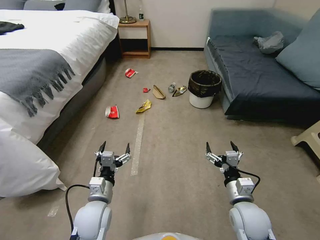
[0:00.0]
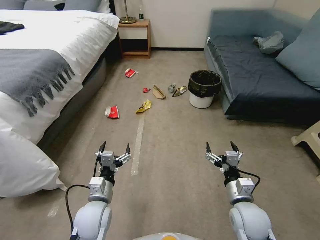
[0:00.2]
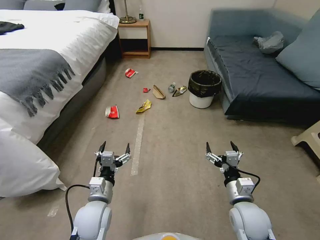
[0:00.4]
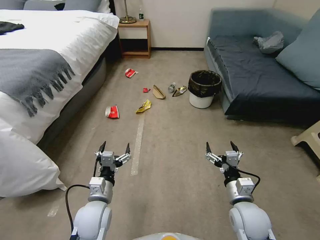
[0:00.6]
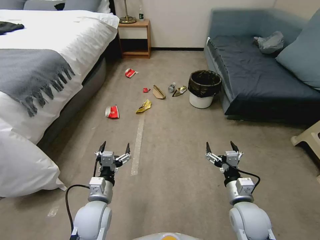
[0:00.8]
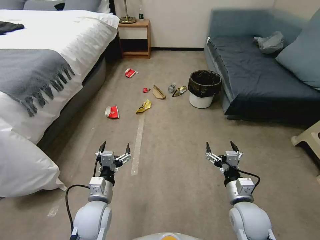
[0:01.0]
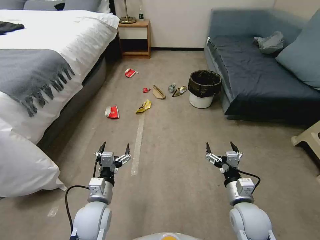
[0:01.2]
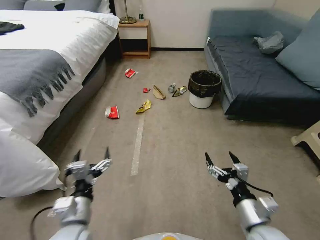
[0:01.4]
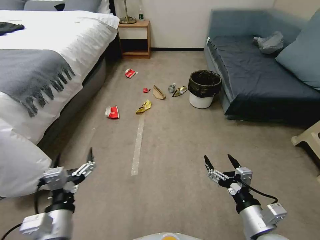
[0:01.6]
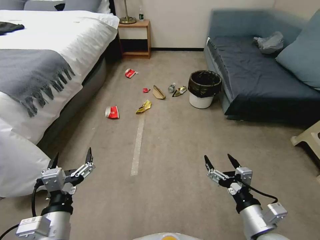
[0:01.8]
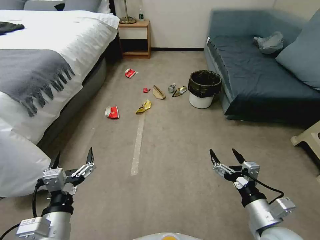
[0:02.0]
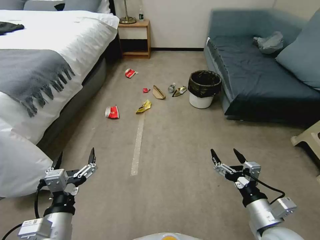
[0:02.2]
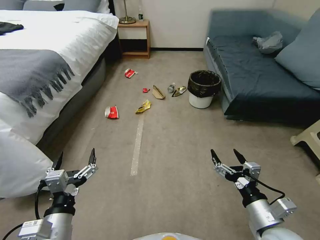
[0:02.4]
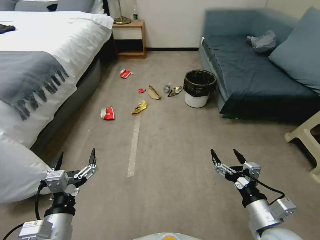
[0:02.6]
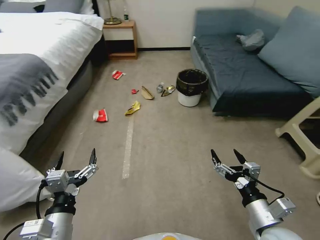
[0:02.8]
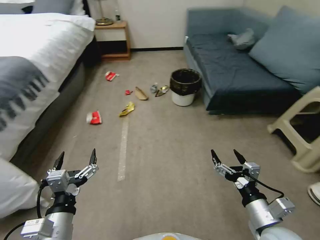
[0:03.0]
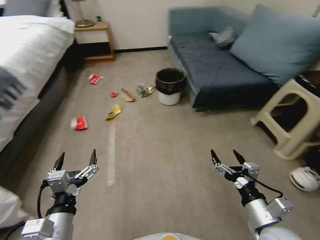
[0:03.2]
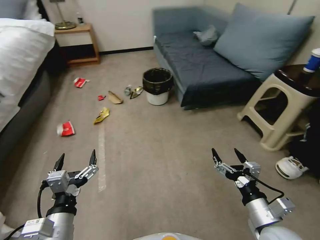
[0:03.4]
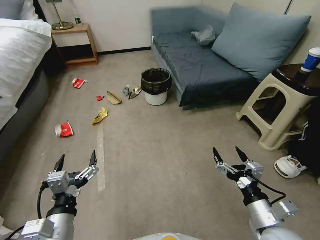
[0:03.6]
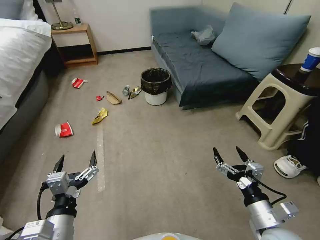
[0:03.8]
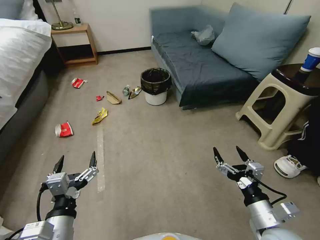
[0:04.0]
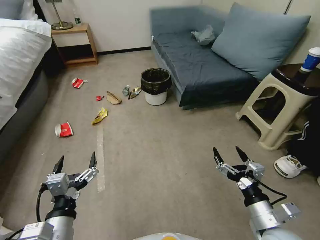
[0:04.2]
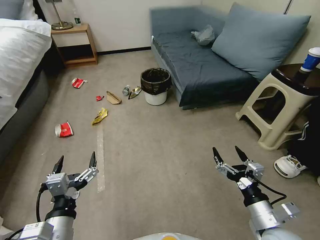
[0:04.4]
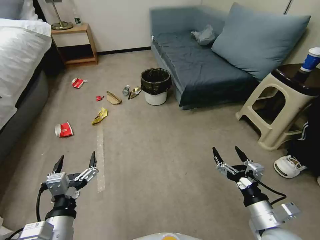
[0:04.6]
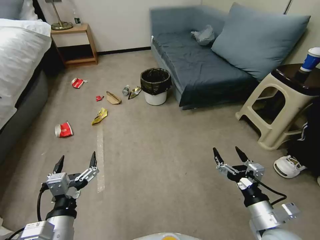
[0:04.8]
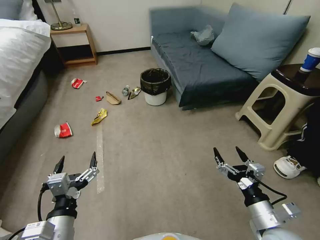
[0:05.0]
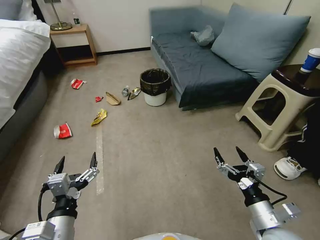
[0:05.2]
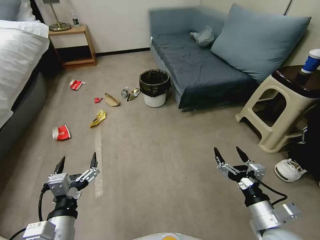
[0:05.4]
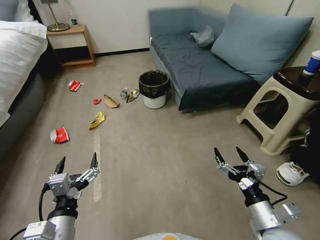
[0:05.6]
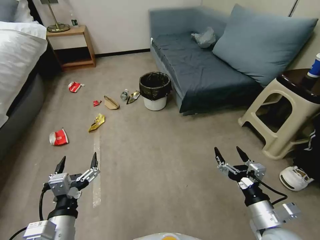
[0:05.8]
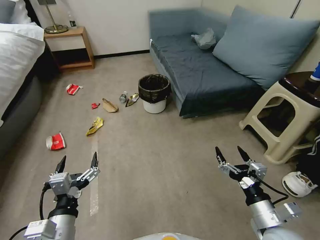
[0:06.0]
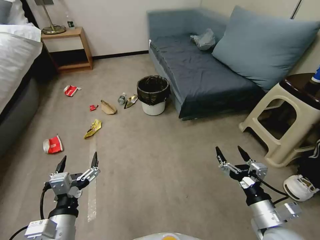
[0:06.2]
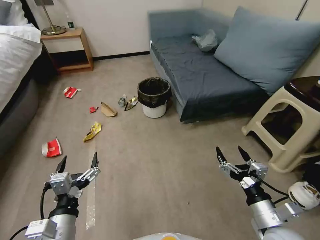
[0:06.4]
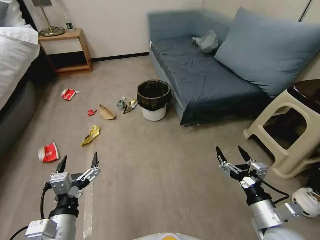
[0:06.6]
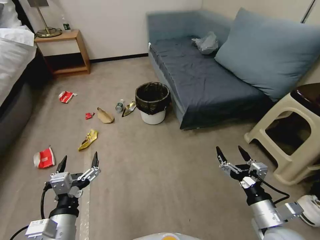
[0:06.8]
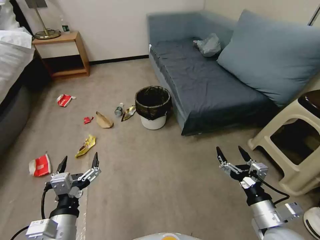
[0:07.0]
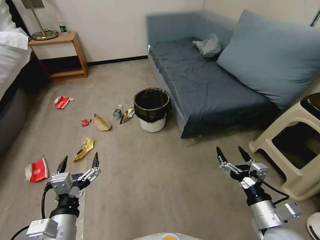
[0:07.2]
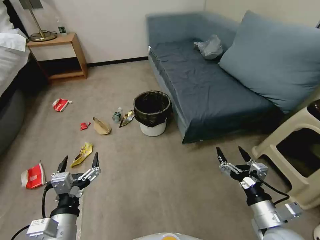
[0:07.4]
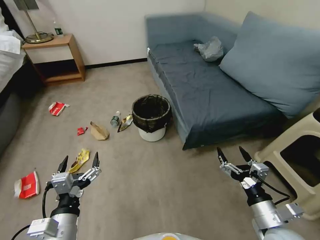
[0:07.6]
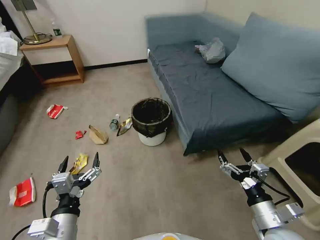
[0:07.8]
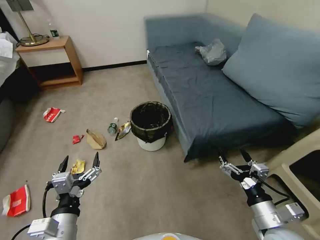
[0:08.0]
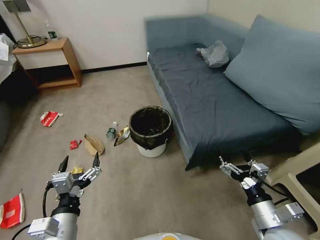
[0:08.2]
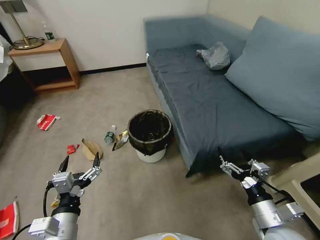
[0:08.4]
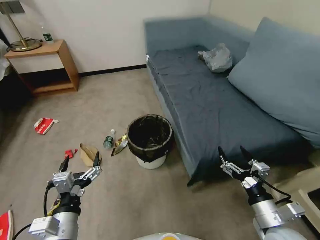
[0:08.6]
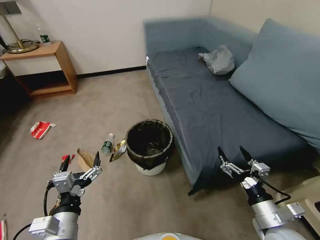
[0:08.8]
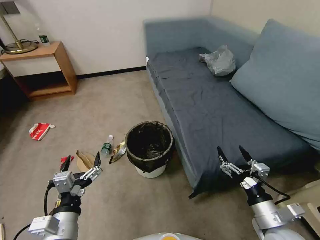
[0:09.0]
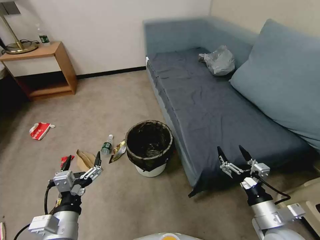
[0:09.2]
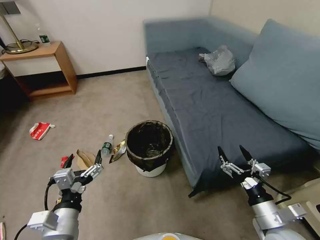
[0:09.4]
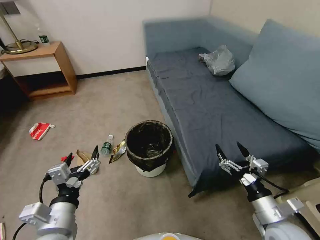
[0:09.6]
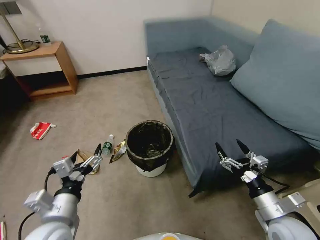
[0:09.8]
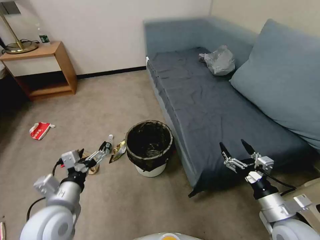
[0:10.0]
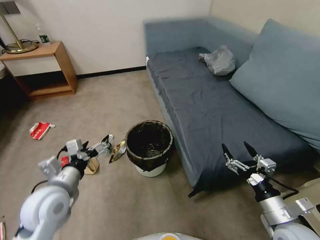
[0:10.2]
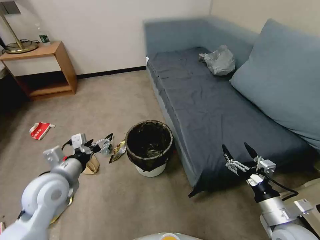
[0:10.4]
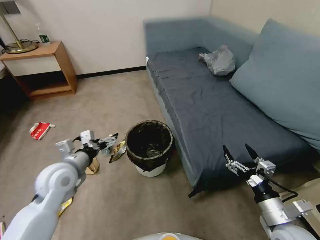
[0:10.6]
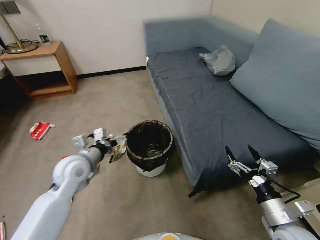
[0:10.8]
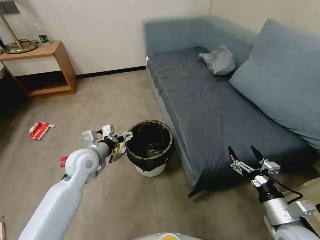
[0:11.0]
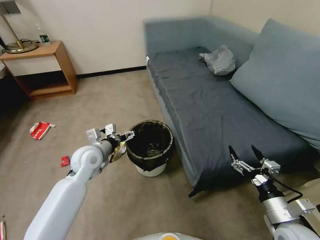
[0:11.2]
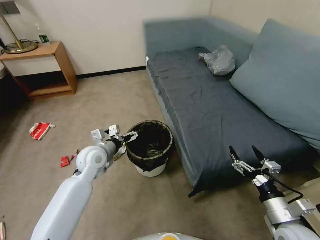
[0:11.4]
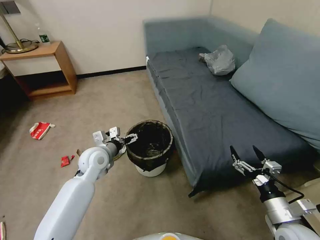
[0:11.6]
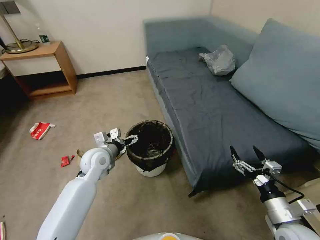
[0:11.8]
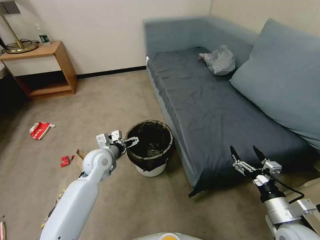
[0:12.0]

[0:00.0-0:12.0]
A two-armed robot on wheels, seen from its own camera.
Task of the whole recording: Pick up the trash can from the floor.
0:09.0 to 0:10.4: The left gripper shifts about 15 cm forward and upward.
0:10.4 to 0:12.0: The left gripper shifts roughly 15 cm forward, downward and to the right.

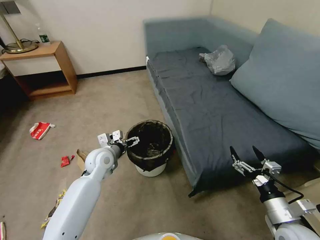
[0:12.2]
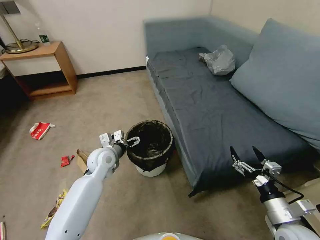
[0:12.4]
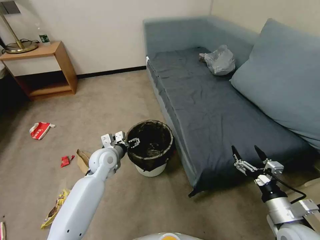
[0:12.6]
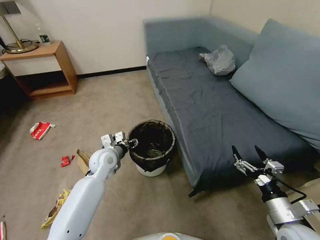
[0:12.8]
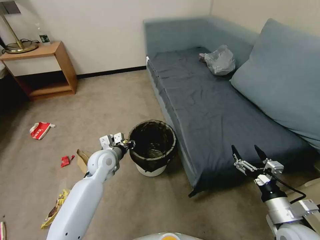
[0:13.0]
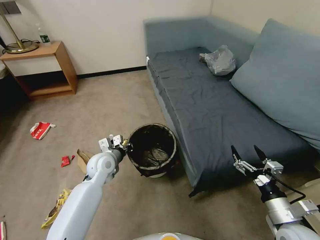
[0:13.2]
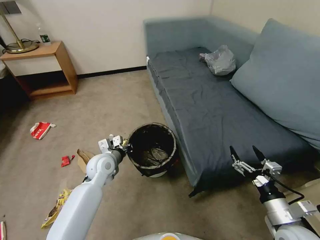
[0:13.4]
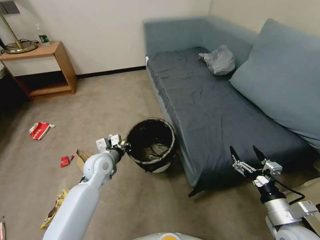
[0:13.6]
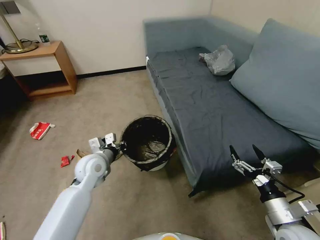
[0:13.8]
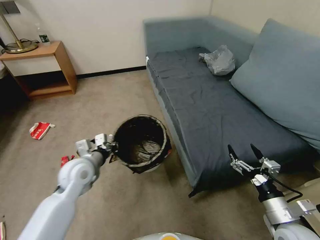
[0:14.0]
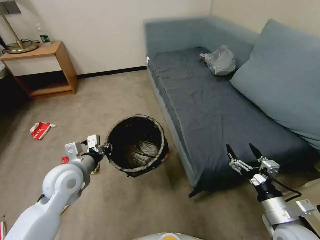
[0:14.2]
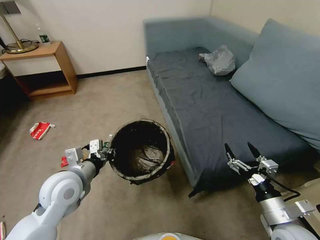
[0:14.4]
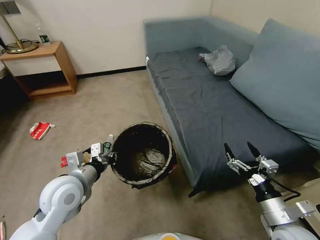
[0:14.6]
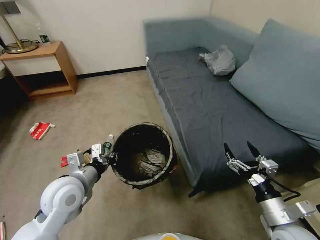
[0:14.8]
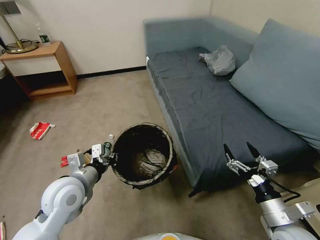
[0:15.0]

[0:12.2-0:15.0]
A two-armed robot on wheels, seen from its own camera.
Task of the whole recording: Pick up the trash can from the floor.
0:12.2 to 0:13.6: The left gripper closes its fingers.
0:13.6 to 0:15.0: The left gripper travels backward and upward by roughly 15 cm.

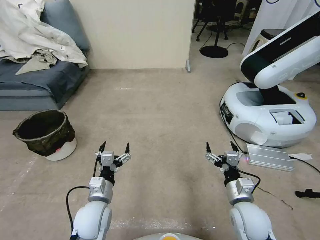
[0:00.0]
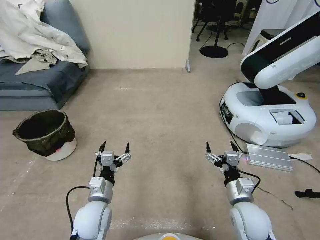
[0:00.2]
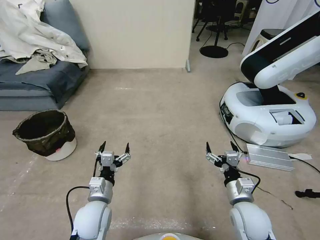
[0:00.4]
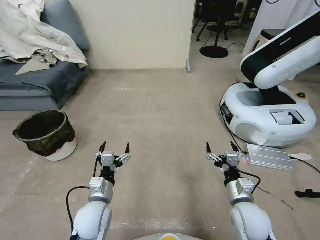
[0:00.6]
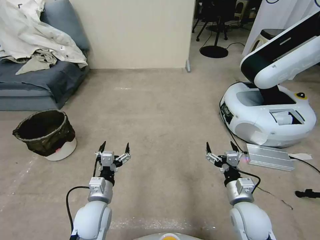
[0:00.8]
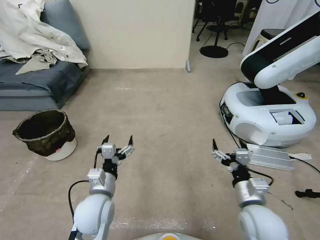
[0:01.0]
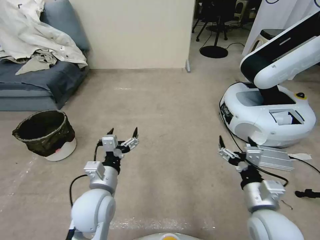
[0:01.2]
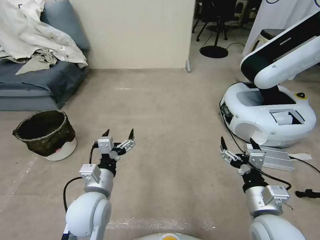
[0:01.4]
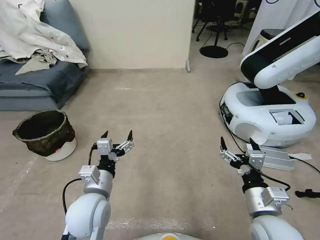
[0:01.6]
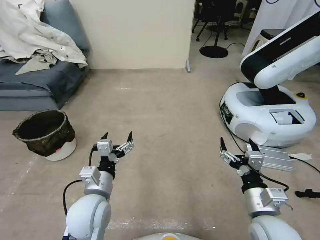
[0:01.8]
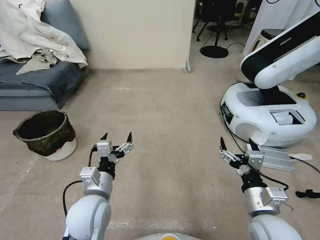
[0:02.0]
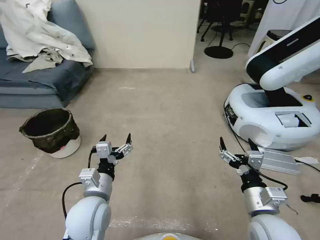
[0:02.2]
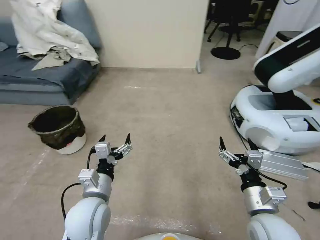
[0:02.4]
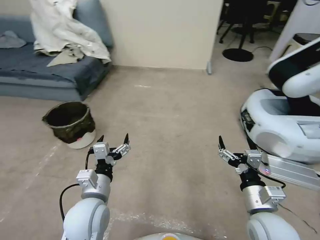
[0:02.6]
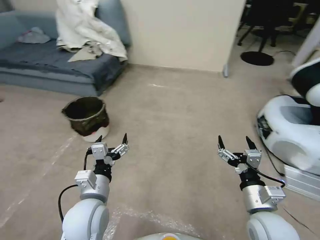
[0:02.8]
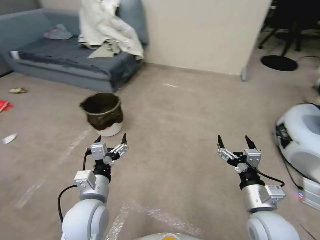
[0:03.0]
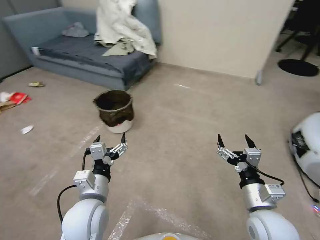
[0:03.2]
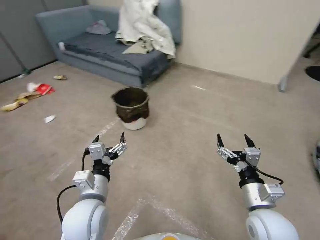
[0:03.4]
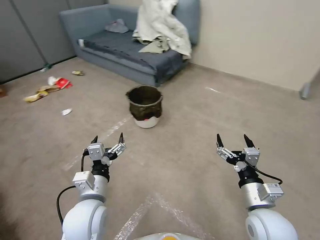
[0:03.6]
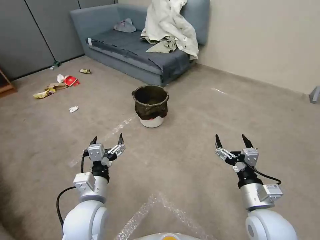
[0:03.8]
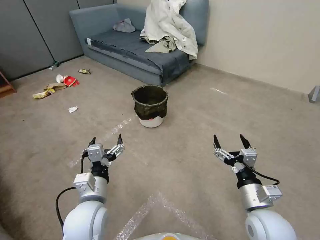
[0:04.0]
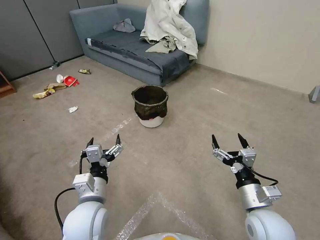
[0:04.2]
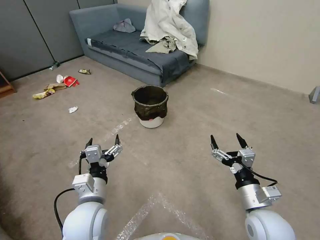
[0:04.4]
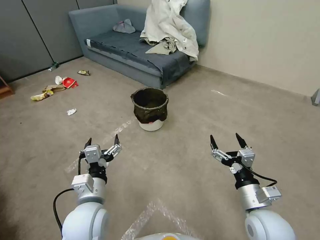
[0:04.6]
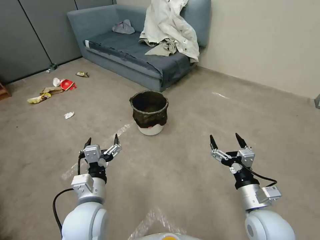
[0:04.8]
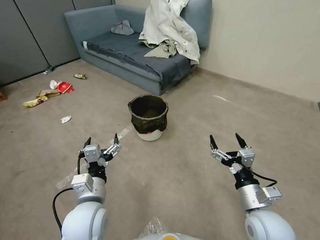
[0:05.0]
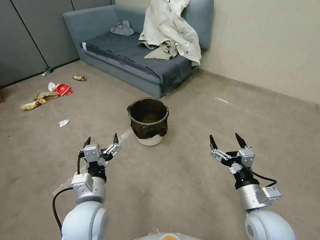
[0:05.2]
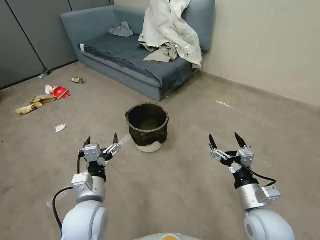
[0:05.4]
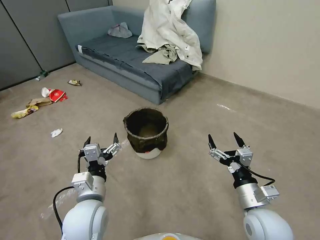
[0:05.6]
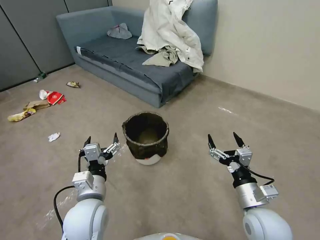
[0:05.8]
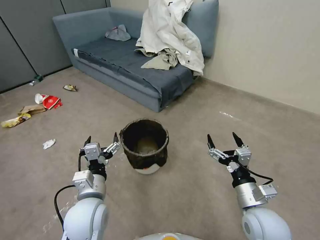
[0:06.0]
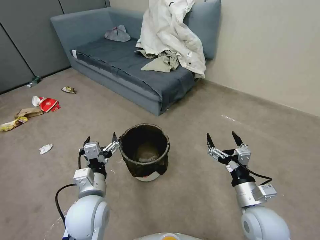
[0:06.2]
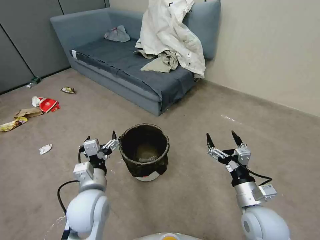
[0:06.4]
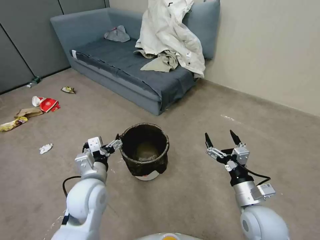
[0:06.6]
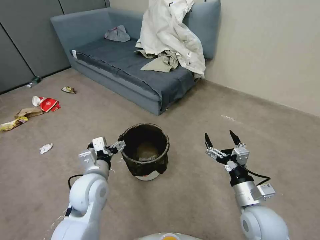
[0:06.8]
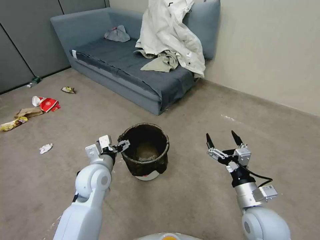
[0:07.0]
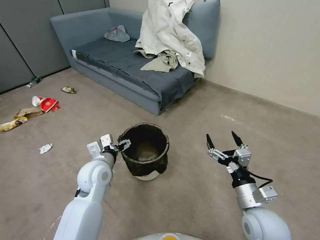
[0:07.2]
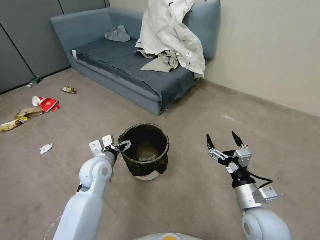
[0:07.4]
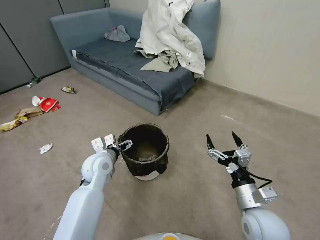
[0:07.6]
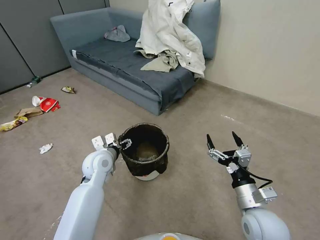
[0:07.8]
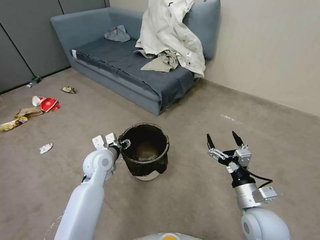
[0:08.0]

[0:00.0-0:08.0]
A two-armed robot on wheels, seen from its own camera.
Task of the whole recording: Pick up the trash can from the floor.
0:06.4 to 0:08.0: The left gripper goes about 15 cm forward, and closes its fingers.
